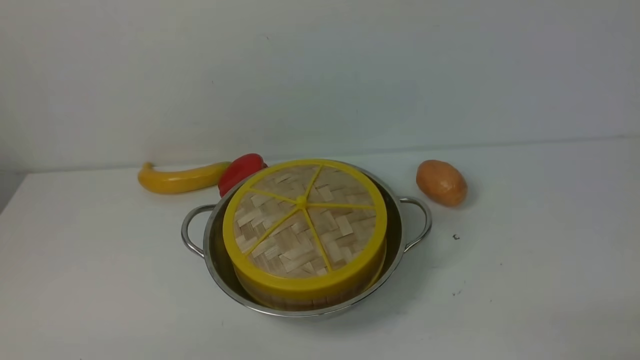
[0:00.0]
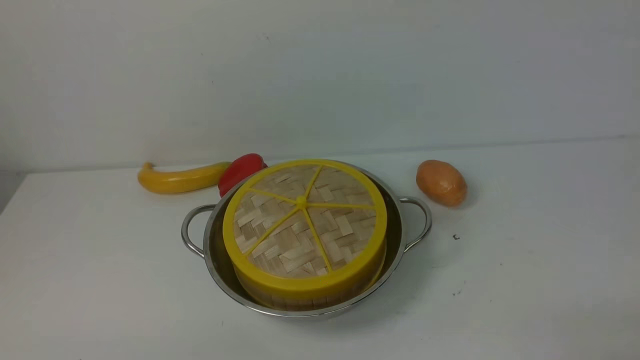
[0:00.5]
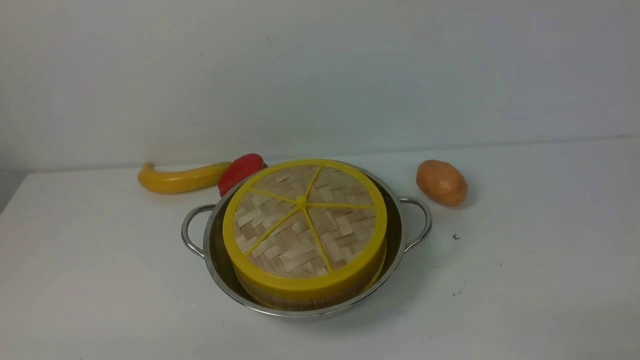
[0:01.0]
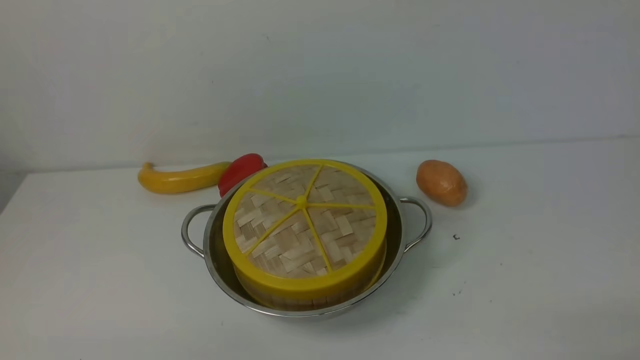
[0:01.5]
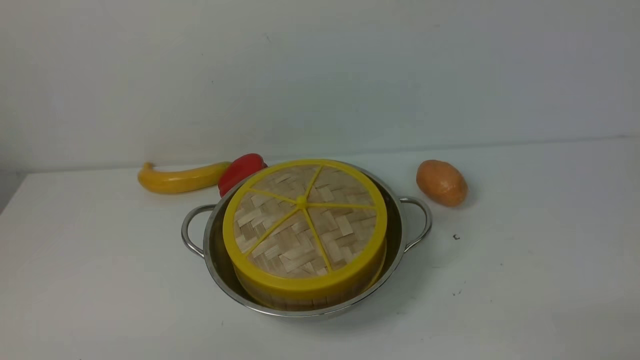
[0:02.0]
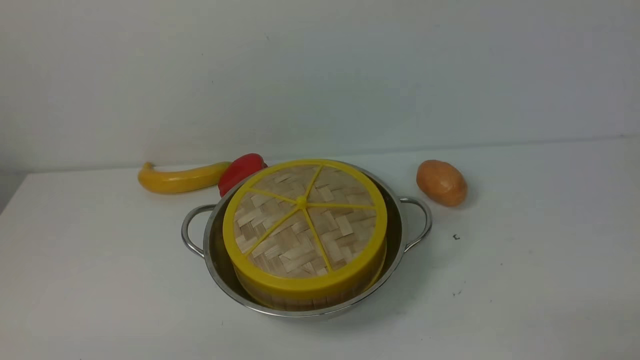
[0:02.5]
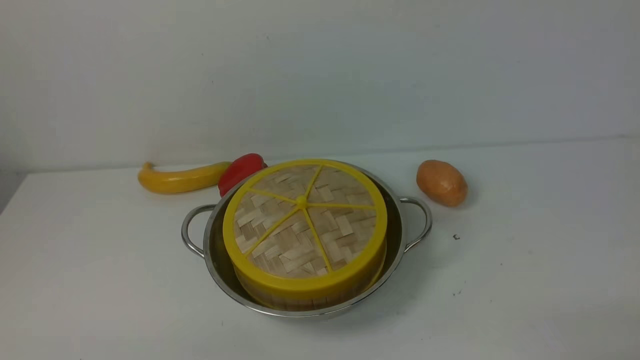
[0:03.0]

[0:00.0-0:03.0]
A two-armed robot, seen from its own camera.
Task of the whole recording: place the steamer in the pot on the white table, and put the lid on the steamer.
0:00.0 to 0:03.0: The two grippers keep their place.

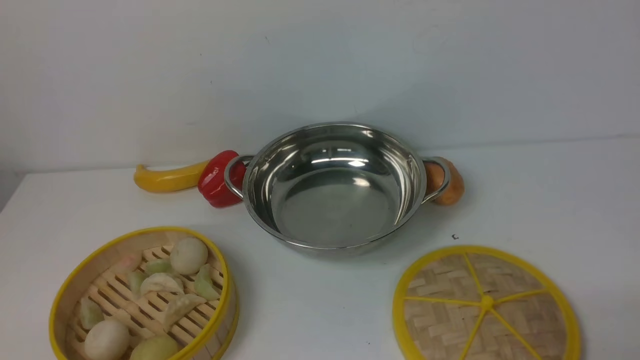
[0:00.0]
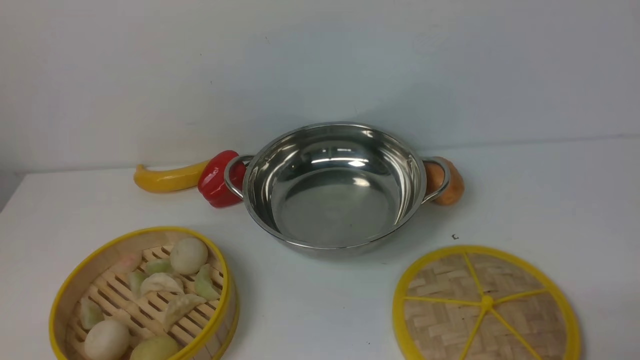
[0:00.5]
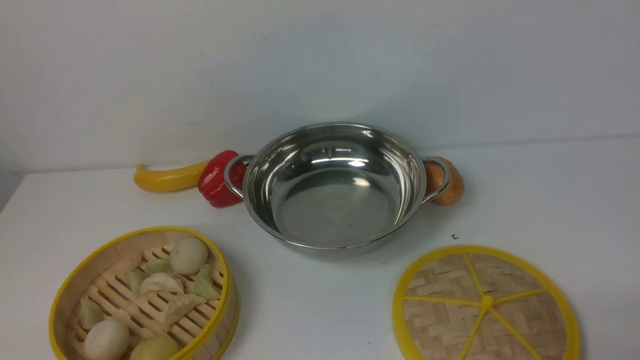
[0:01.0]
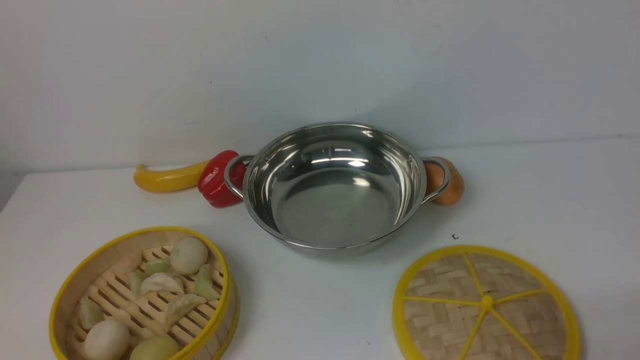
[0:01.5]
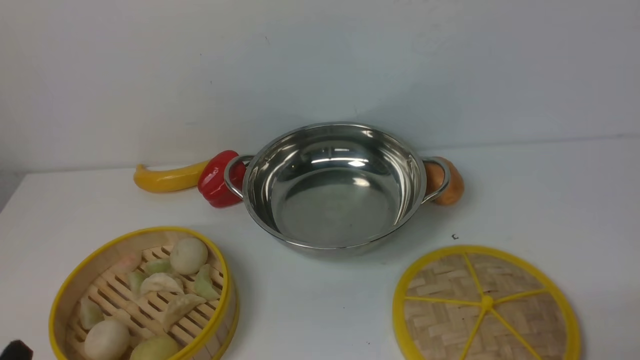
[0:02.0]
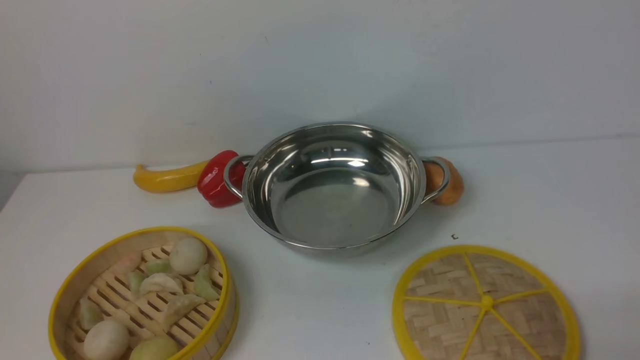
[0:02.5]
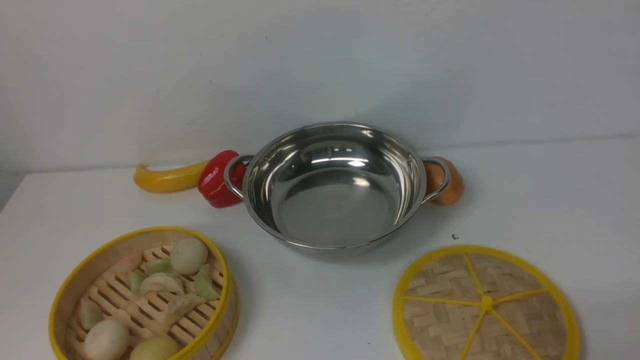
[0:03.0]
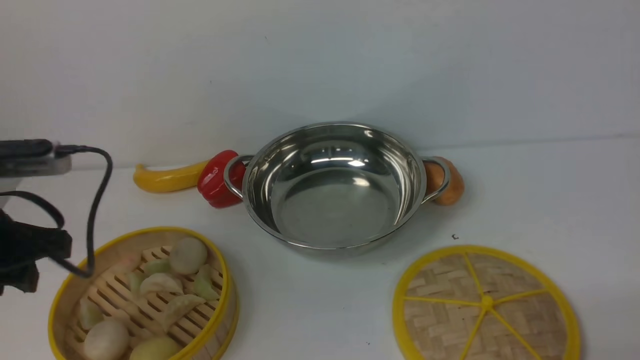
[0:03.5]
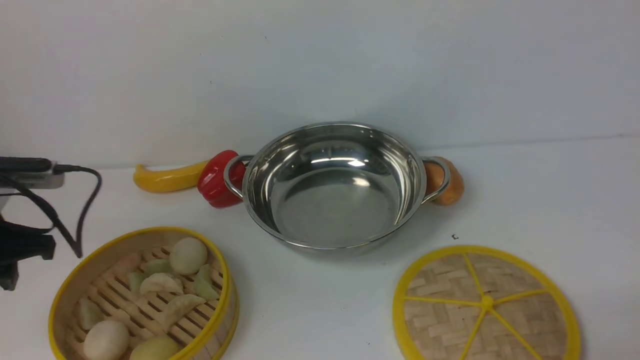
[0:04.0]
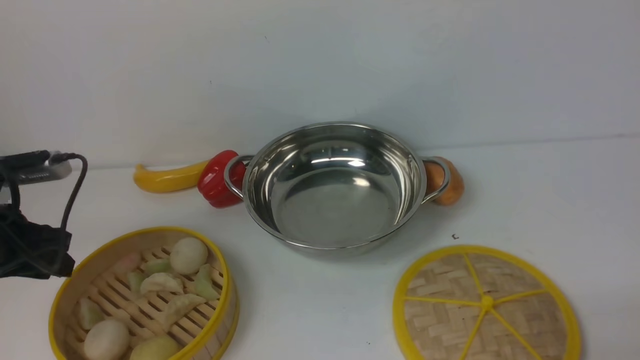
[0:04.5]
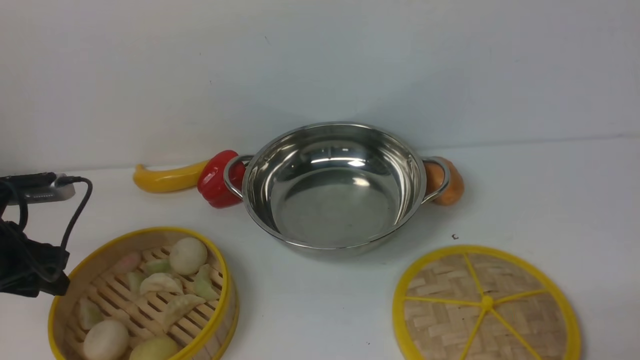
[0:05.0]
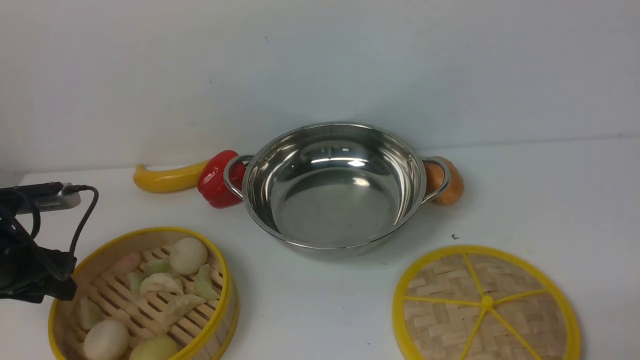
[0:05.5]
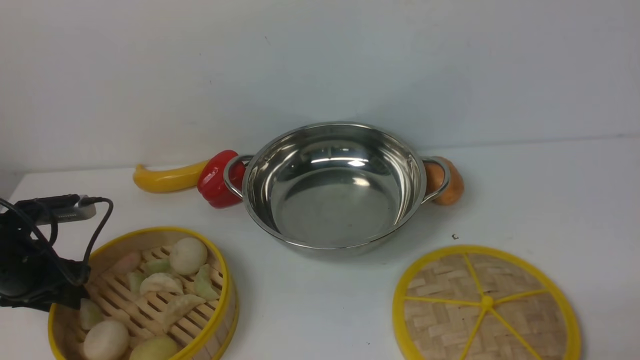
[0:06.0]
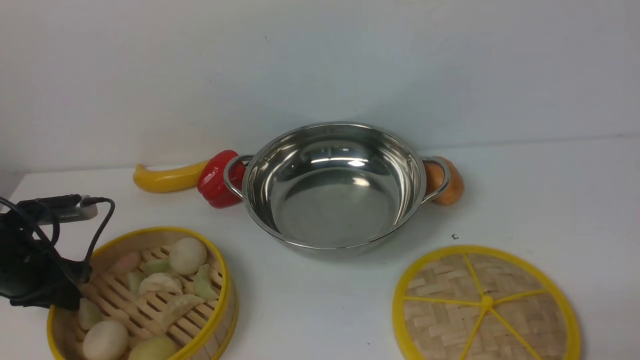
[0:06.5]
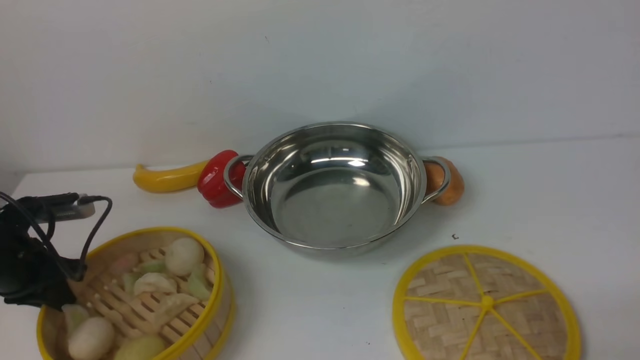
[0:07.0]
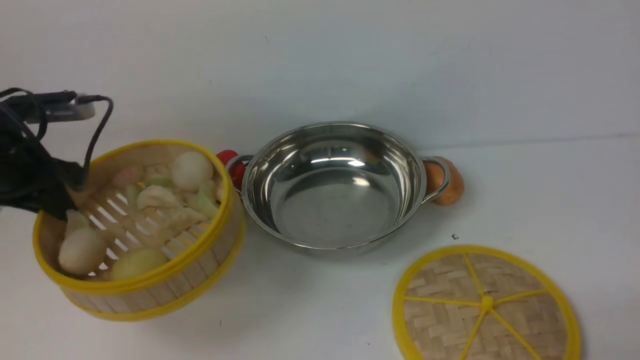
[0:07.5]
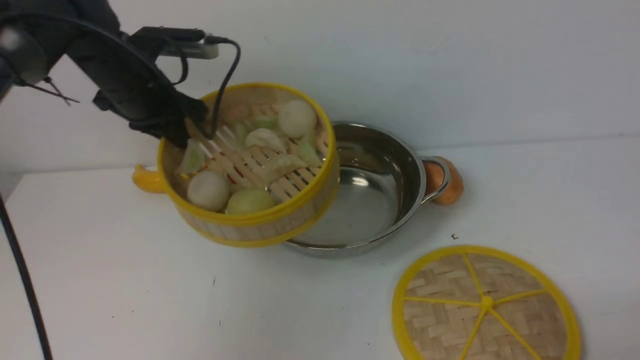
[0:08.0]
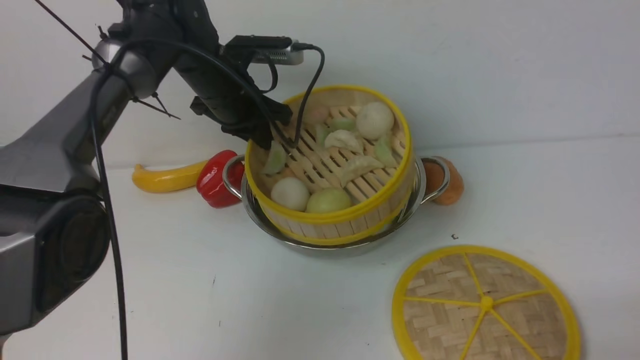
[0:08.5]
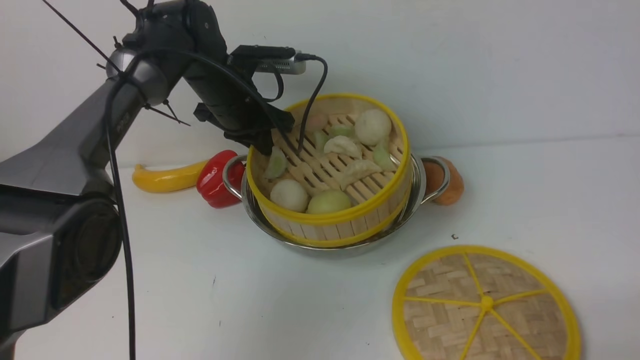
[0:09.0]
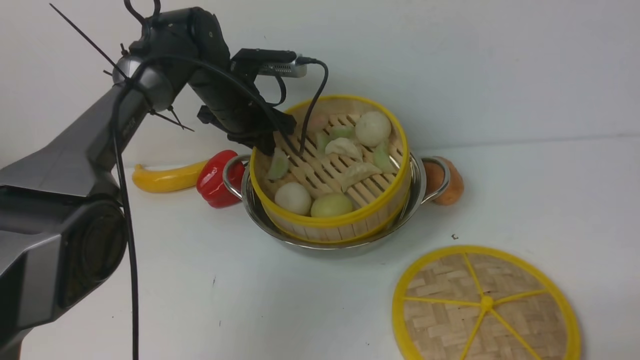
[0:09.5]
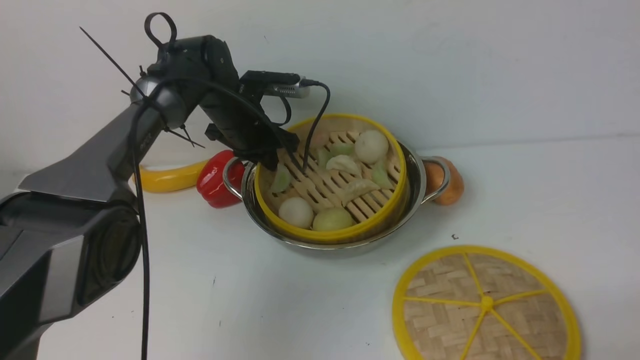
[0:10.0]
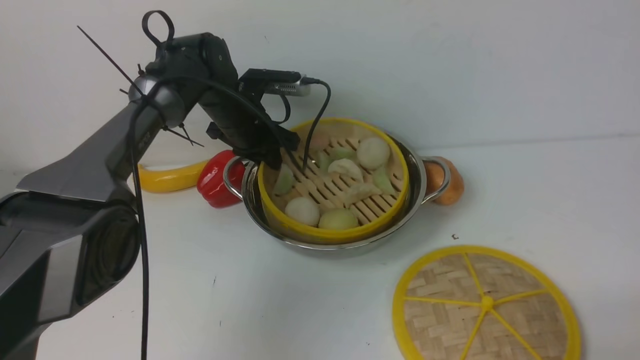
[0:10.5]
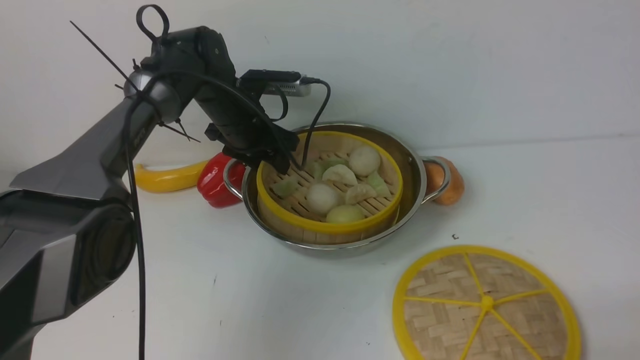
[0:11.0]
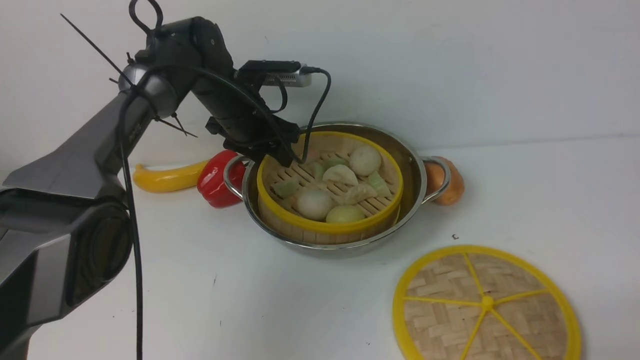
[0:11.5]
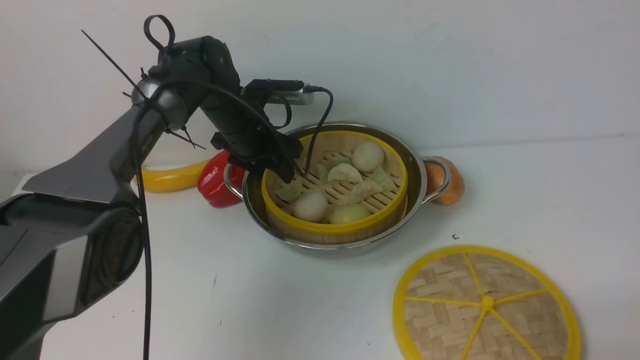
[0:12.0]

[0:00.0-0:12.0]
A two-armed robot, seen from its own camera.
Task of the whole recording: place the steamer in the pot on the white table, and put the lid on the steamer.
Step, 0:00.0 to 0:07.5: use the left arm to lift the steamer closest to it.
0:02.0 to 0:04.0: The left gripper heads forward, covering roughly 25 cm.
0:04.0 to 0:06.0: The left gripper is displaced downward and to the left by about 10 cm.
0:06.0 to 0:08.0: The left gripper moves upward, forward and to the right, roughly 20 cm, and closes its fingers.
0:08.0 to 0:10.0: The left gripper is displaced to the right, downward and forward by roughly 15 cm.
0:10.0 to 0:12.0: The left gripper opens up.

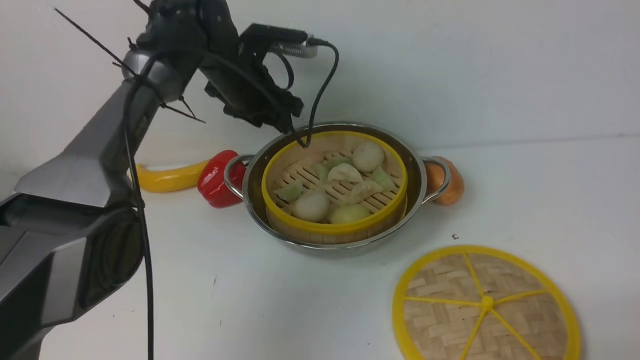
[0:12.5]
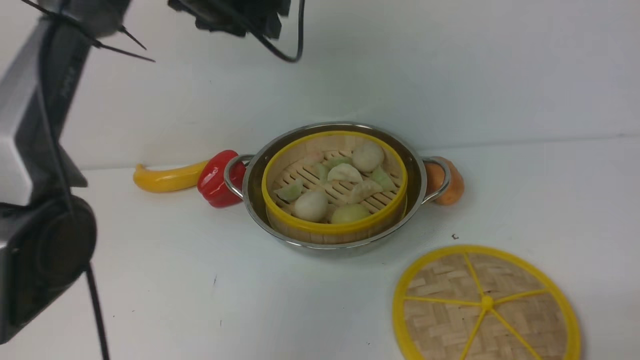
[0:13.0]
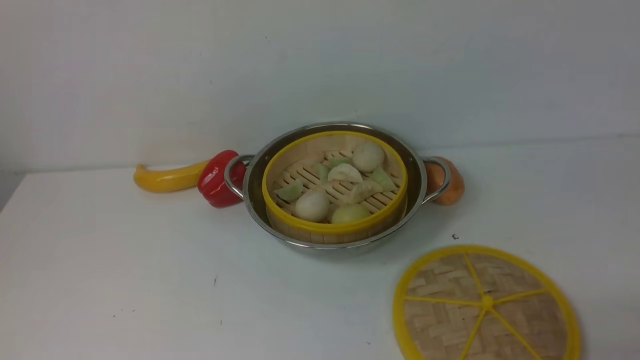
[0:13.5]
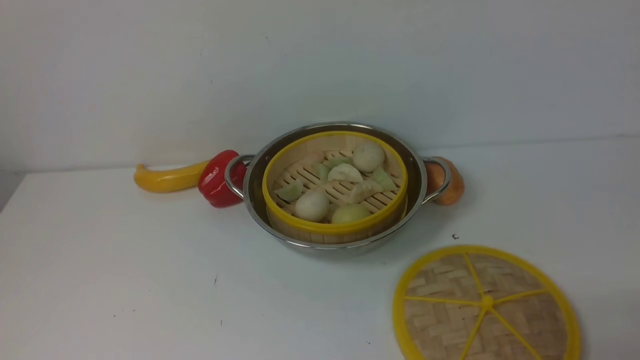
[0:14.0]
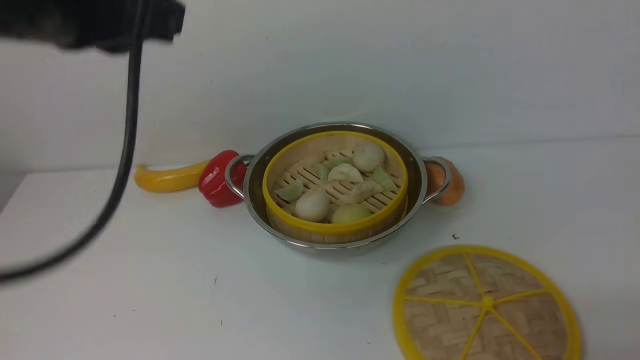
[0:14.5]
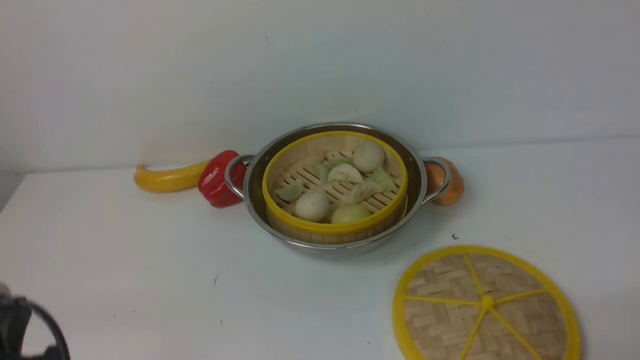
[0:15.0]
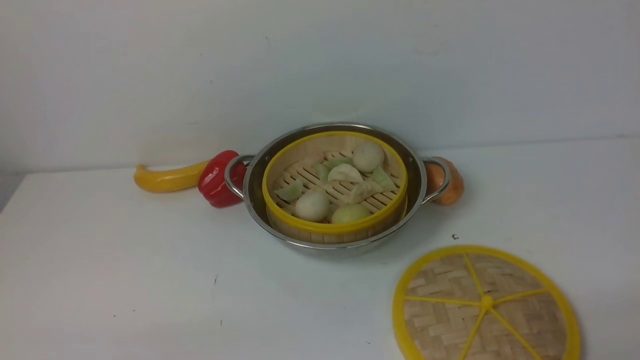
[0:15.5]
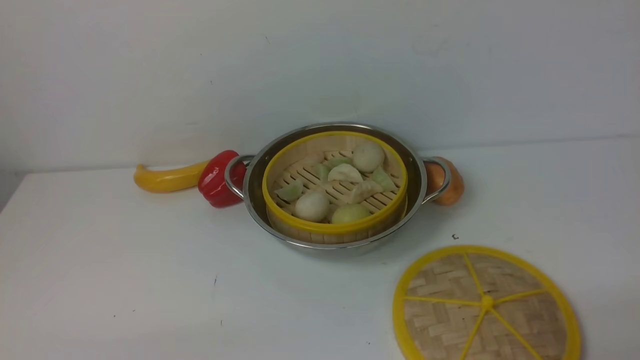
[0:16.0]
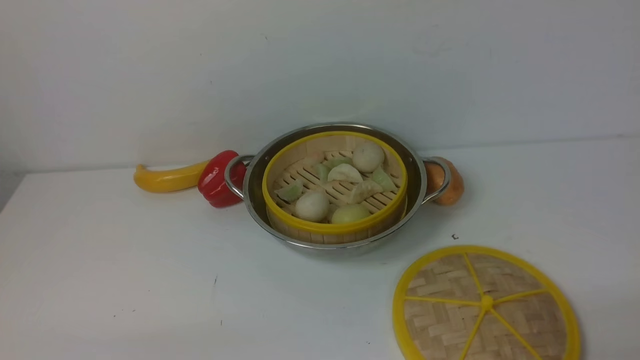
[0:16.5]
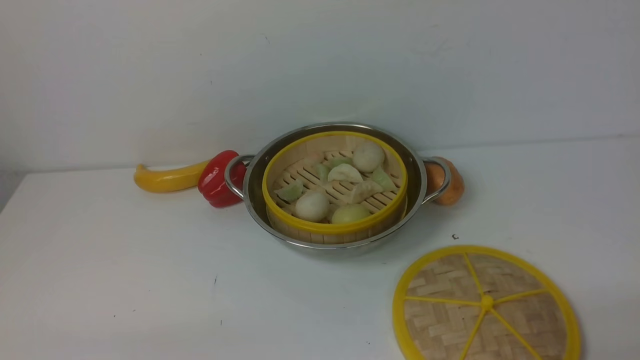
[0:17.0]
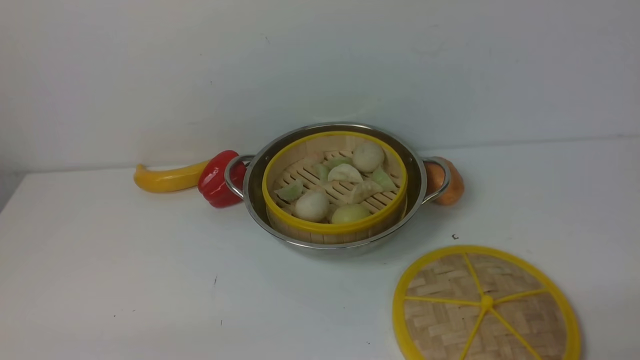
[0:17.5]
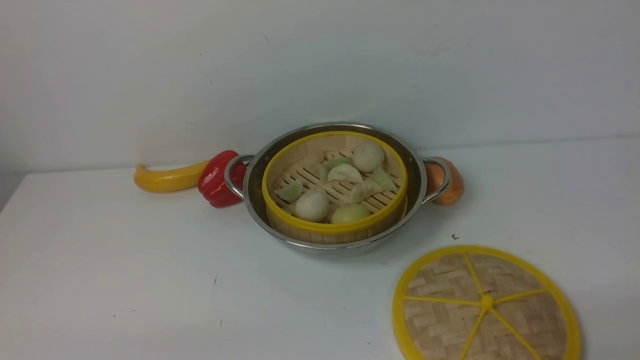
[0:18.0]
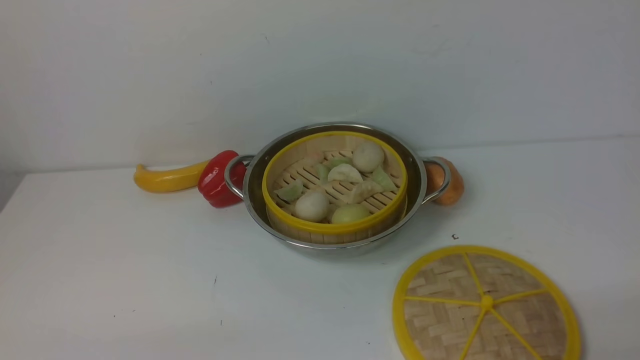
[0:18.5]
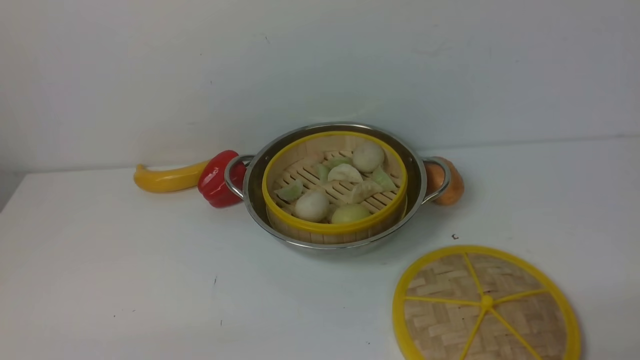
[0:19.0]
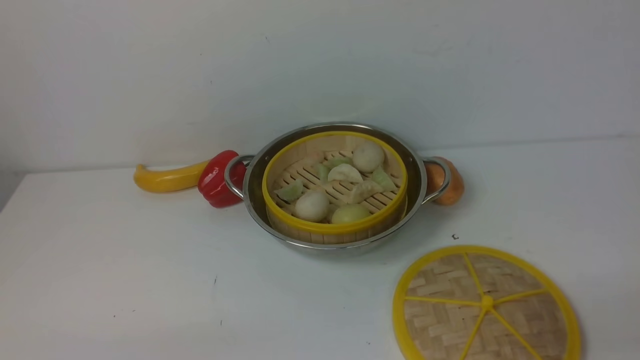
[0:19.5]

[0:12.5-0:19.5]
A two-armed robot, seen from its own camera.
Task of the whole recording: place the steamer in the pot on the white table, and put the lid on the steamer.
0:12.5 to 0:14.5: The left gripper shifts roughly 40 cm upward and backward, and closes.
0:14.5 to 0:16.0: The left gripper shifts about 40 cm downward and backward.
